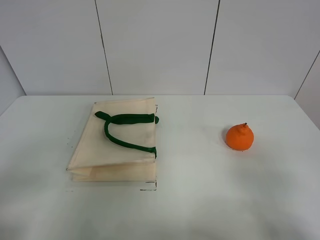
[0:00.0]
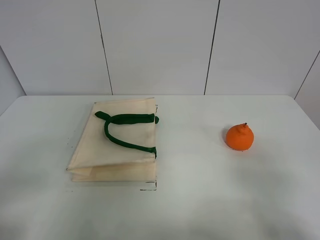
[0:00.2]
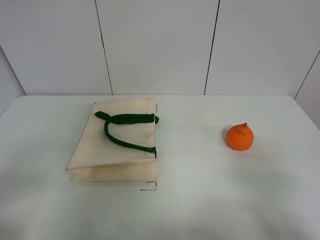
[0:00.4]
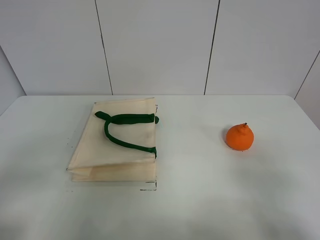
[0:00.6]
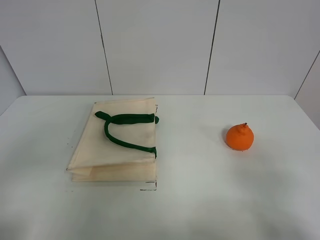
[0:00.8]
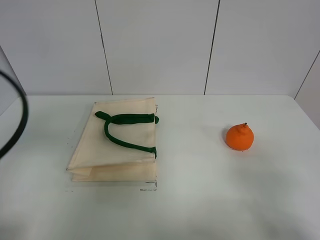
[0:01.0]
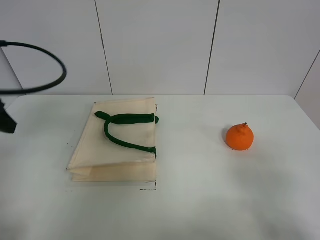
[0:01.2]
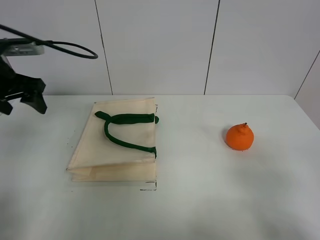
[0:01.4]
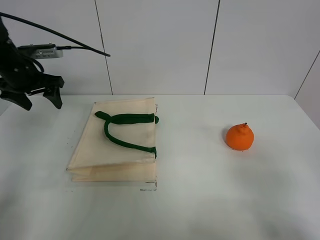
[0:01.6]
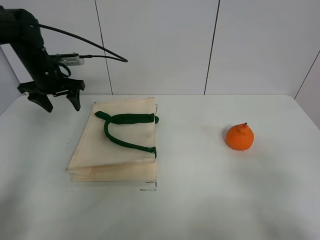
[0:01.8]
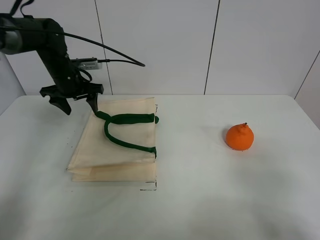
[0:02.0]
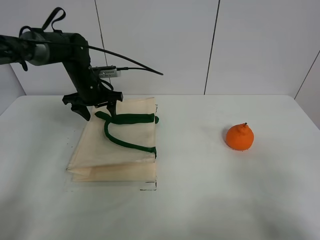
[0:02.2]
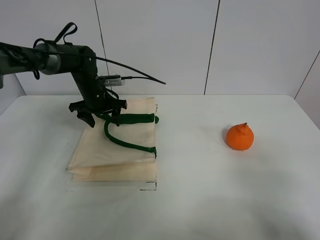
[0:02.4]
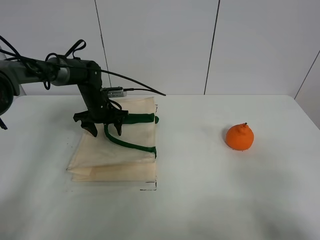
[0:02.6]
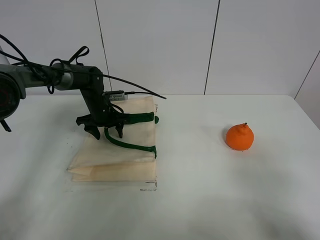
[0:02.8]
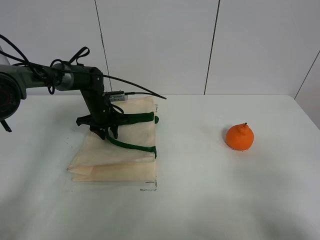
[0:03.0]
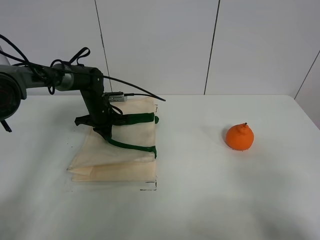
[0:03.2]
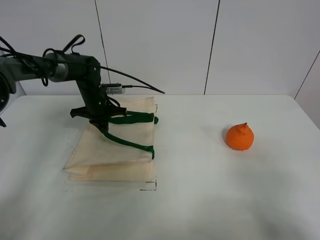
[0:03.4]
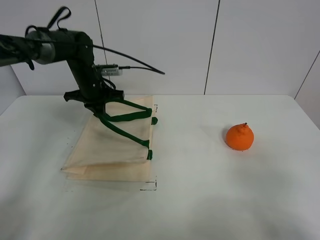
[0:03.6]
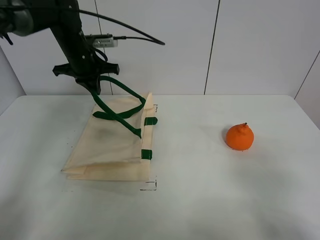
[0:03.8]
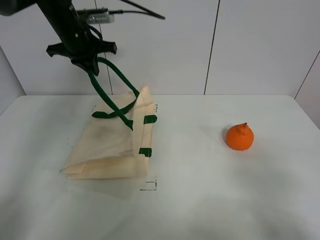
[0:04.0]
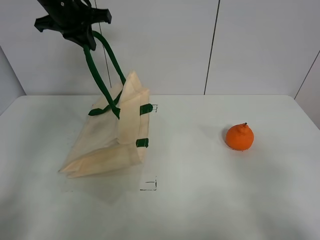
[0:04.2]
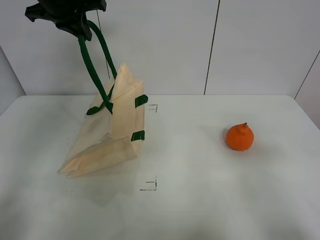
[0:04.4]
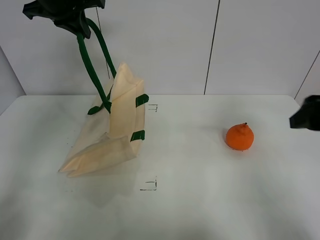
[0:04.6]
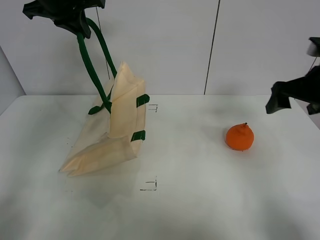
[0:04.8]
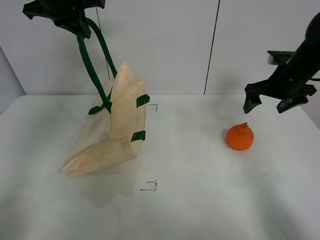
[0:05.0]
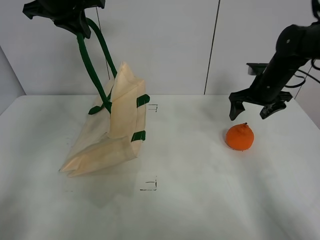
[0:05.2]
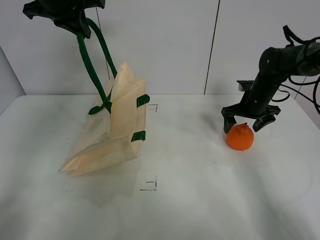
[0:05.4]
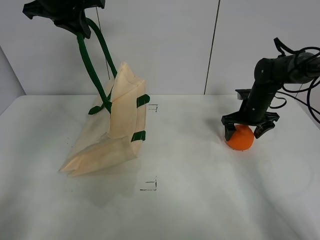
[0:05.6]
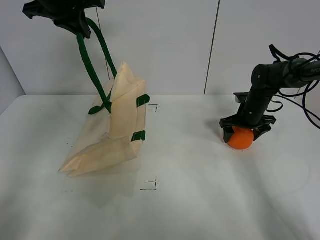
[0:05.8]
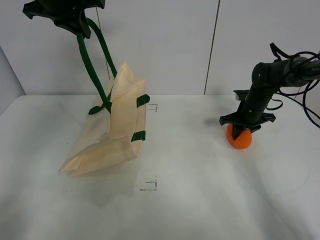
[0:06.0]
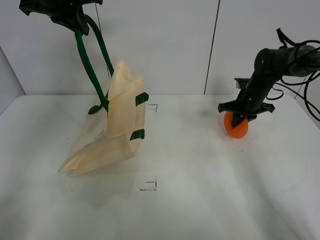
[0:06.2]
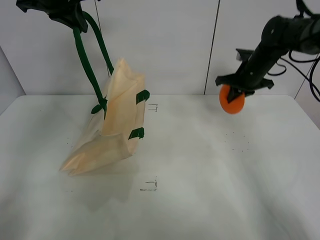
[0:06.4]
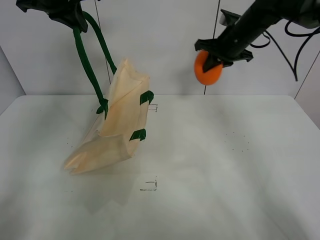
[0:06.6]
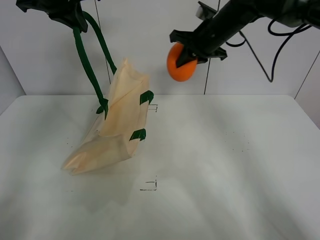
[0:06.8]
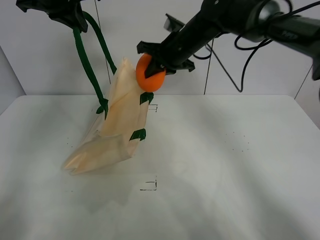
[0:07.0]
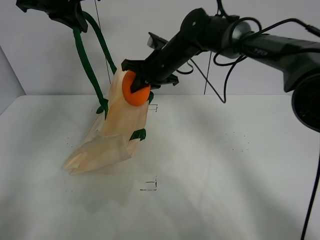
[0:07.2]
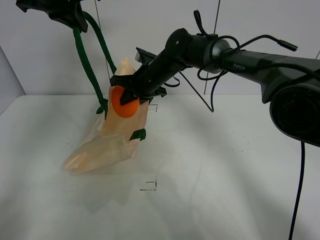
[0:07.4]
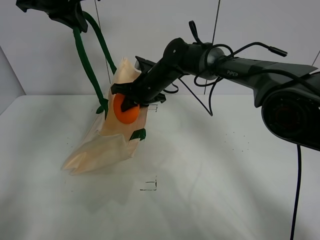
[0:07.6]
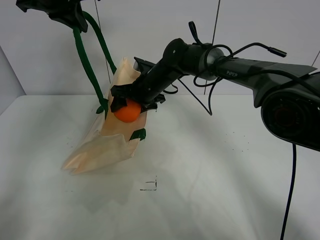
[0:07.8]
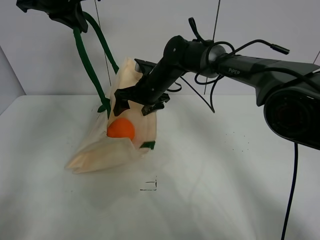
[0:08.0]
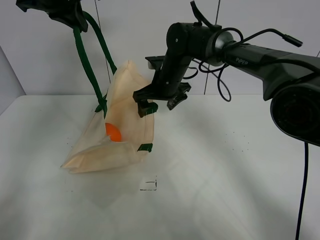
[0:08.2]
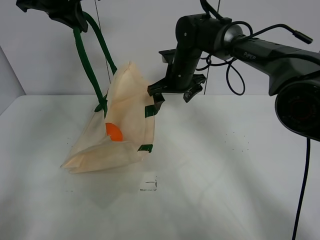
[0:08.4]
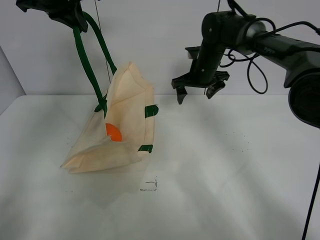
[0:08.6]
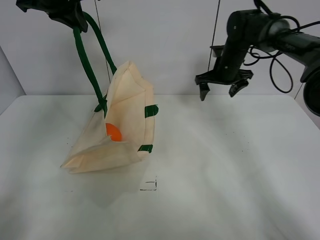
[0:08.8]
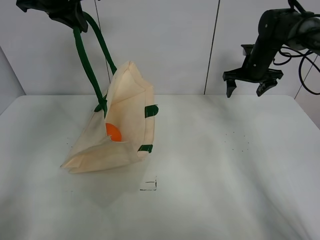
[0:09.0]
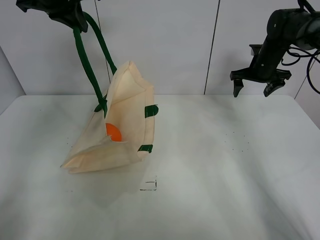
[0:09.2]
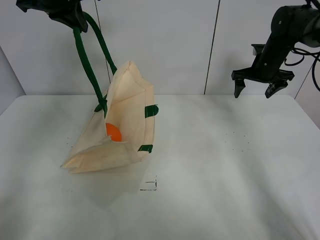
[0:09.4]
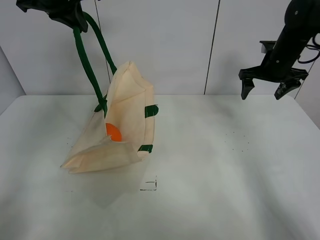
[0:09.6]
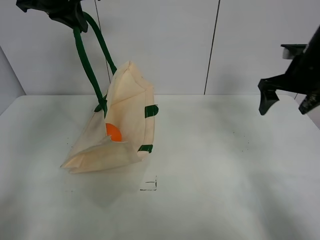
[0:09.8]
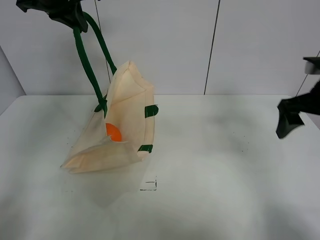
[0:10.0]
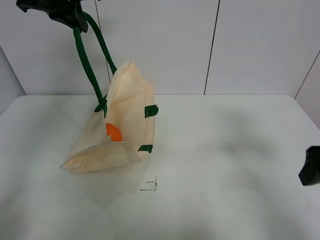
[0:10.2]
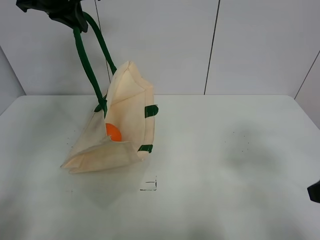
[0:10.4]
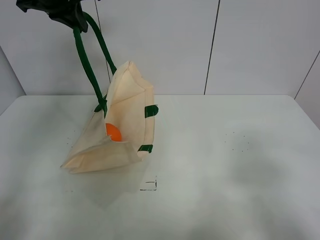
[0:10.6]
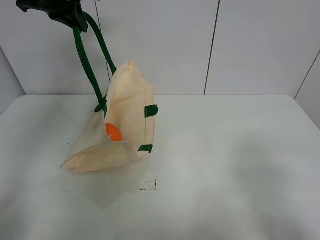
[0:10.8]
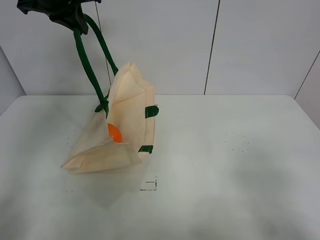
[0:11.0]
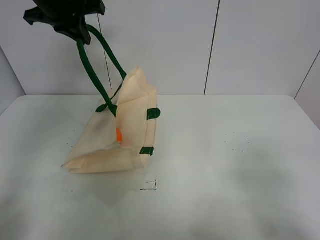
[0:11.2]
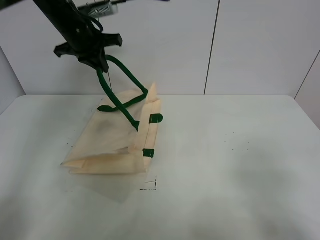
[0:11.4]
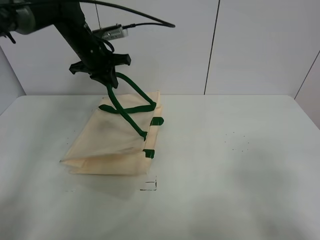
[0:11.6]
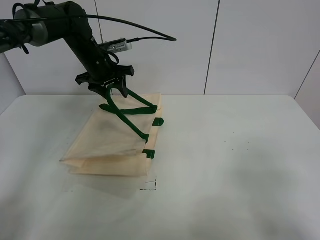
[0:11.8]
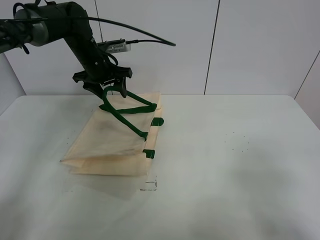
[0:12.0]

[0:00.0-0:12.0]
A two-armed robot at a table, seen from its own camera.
Task of the whole recording: open the white linen bag and put the orange in the bag.
Step, 0:00.0 to 0:04.4: Lift the handbag with left gripper.
Step, 0:04.6 to 0:06.0: Grasp the orange with right gripper.
Step, 0:06.2 to 0:08.0: Place the orange in the handbag with right gripper.
0:00.0 to 0:01.6: The left gripper goes some 40 cm forward.
0:01.6 to 0:03.0: The left gripper moves downward, to the right and forward, some 20 cm, and closes its fingers.
0:03.0 to 0:04.4: The left gripper moves upward, about 30 cm, and closes its fingers, while the right gripper shifts some 10 cm forward.
0:04.4 to 0:06.0: The right gripper is displaced forward and downward by about 40 cm, and closes.
0:06.0 to 0:07.6: The right gripper goes roughly 25 cm to the left.
0:07.6 to 0:09.0: The right gripper moves to the right, roughly 30 cm, and opens its fingers.
0:09.0 to 0:10.4: The right gripper is displaced backward by roughly 40 cm.
0:10.4 to 0:12.0: The left gripper shifts roughly 20 cm downward, and opens up, while the right gripper travels backward by approximately 10 cm.

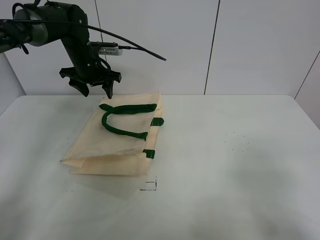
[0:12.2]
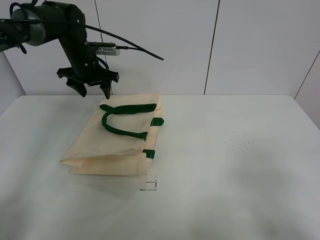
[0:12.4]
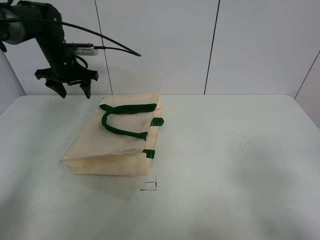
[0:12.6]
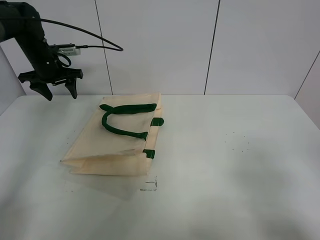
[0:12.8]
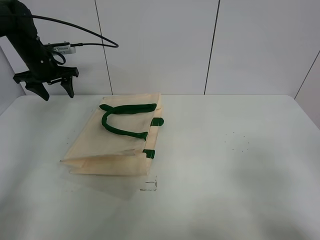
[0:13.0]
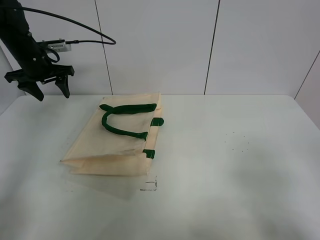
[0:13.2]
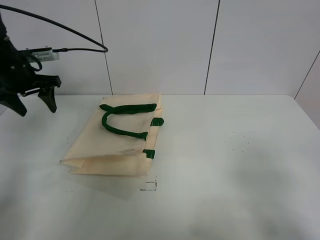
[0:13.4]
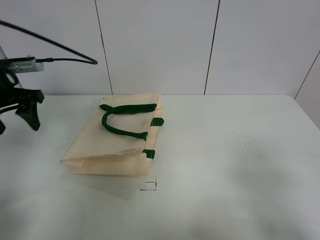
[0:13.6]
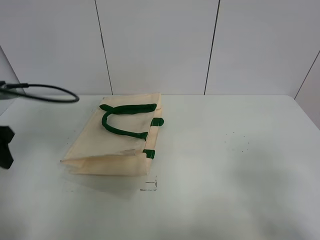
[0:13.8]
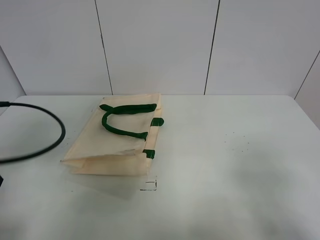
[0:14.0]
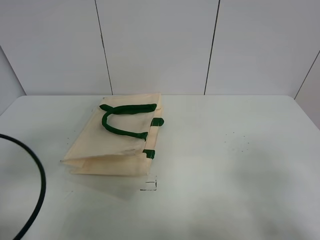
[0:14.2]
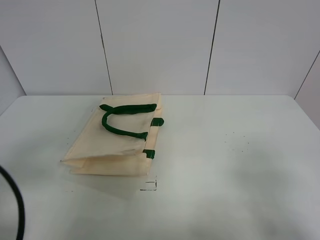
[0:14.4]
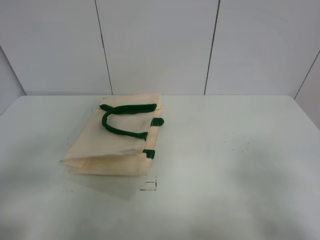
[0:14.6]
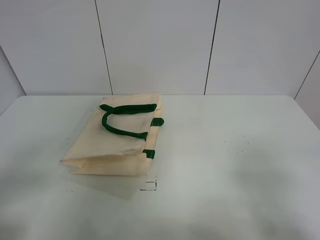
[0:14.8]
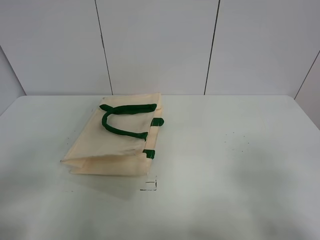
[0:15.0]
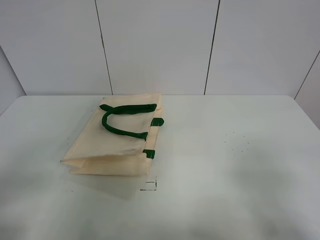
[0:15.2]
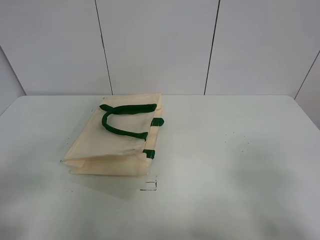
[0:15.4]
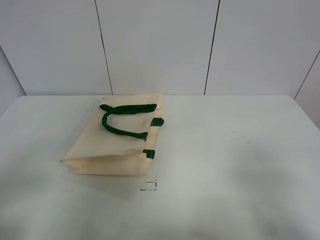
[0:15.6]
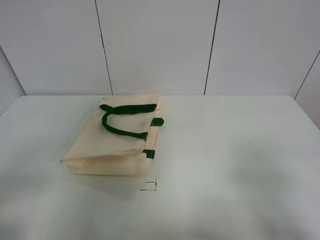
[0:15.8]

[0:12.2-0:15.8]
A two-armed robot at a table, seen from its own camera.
Task of the whole recording: open the white linen bag and put the orange in the bag.
0:12.2 to 0:14.0: The left gripper travels backward by about 35 cm.
0:14.0 to 0:15.8: The left gripper heads backward, covering some 15 cm.
